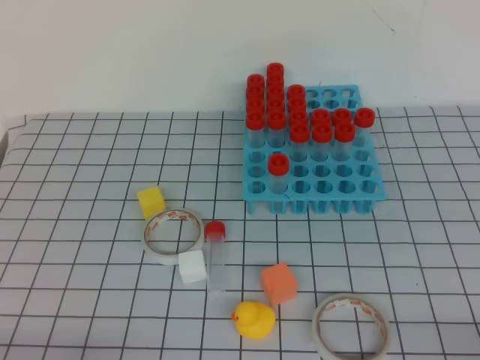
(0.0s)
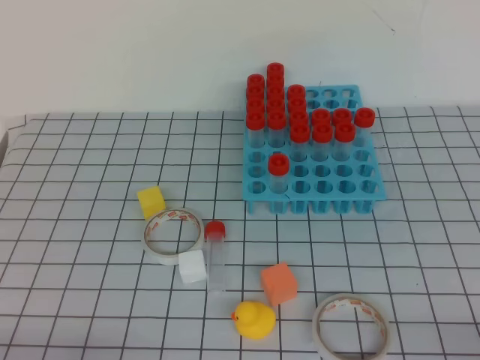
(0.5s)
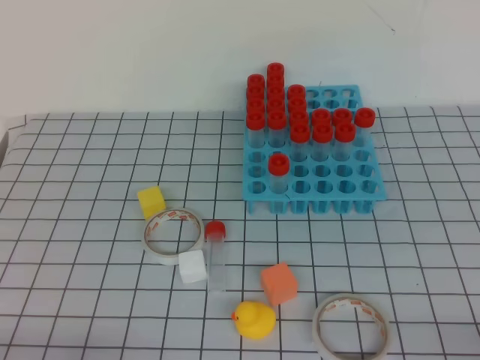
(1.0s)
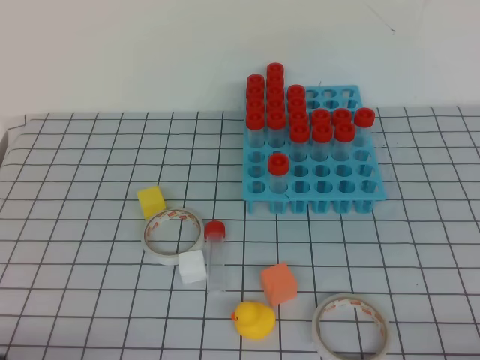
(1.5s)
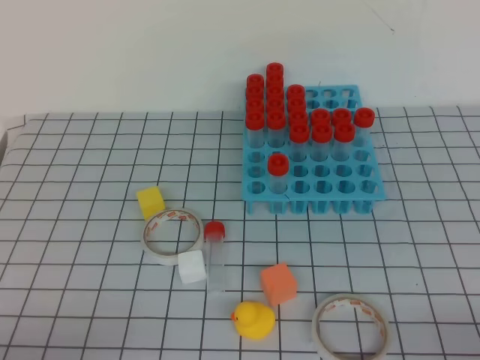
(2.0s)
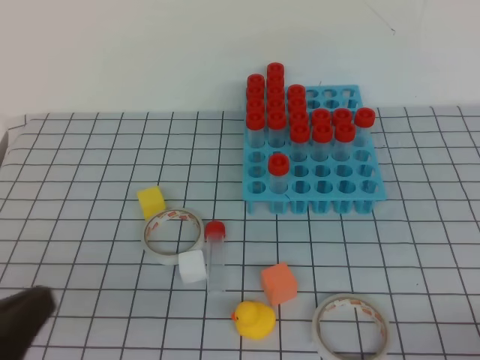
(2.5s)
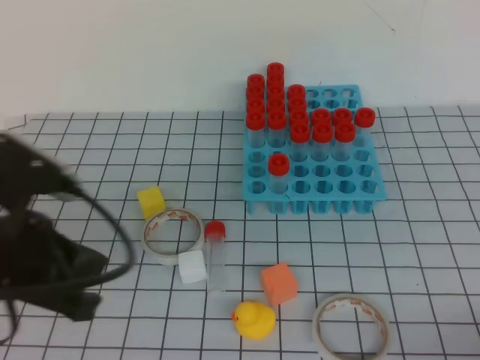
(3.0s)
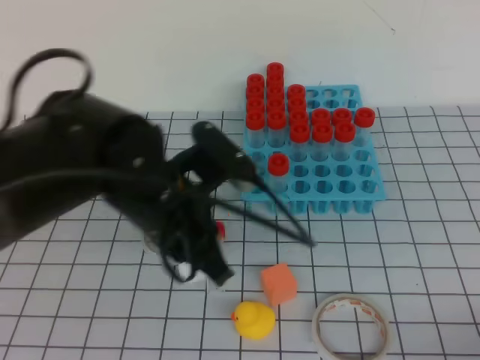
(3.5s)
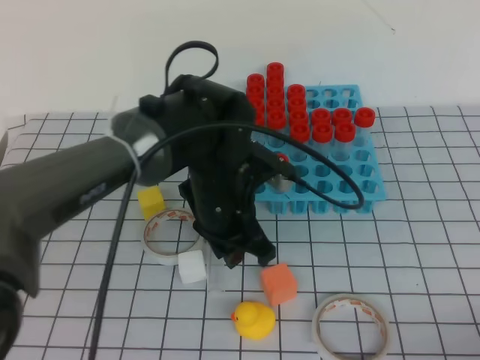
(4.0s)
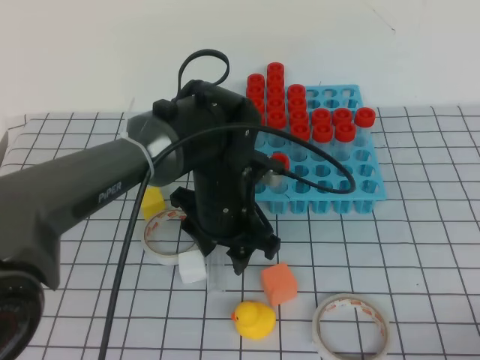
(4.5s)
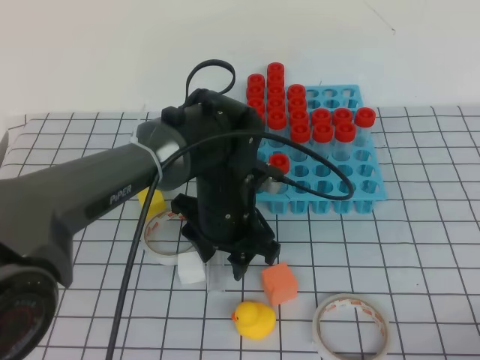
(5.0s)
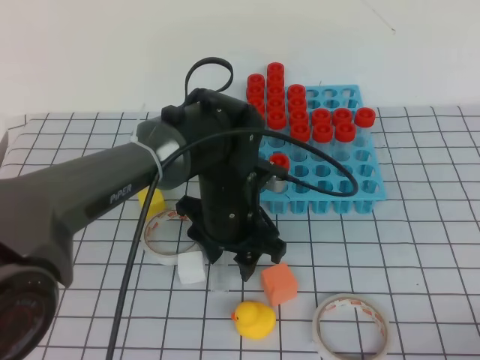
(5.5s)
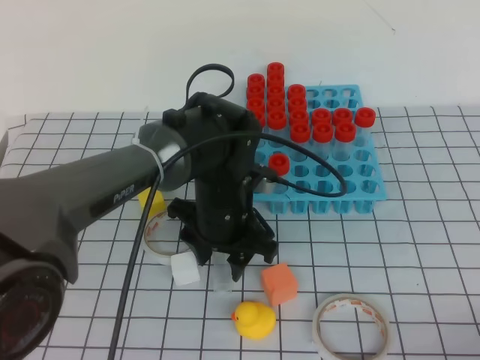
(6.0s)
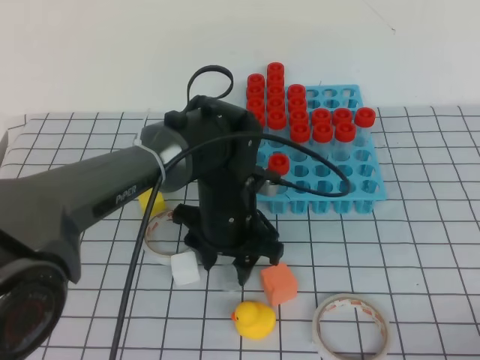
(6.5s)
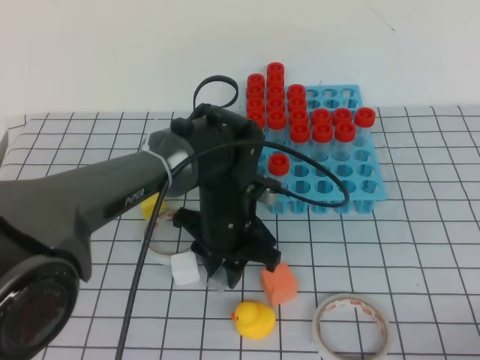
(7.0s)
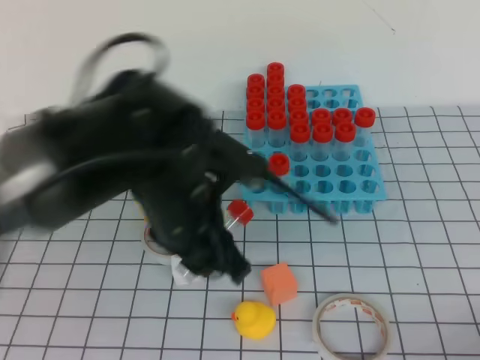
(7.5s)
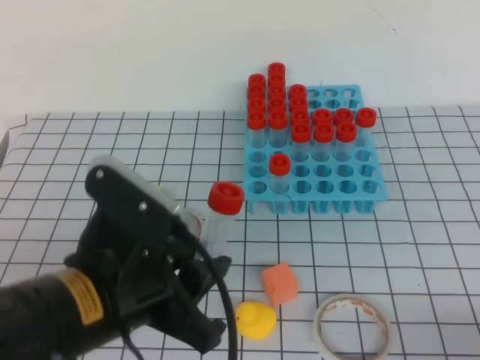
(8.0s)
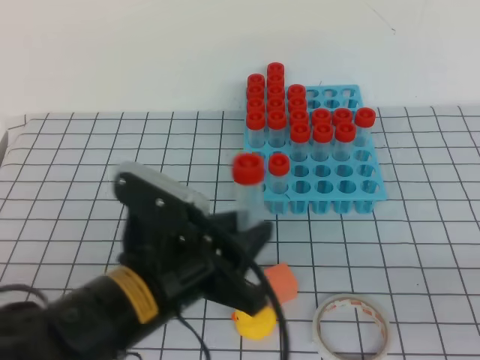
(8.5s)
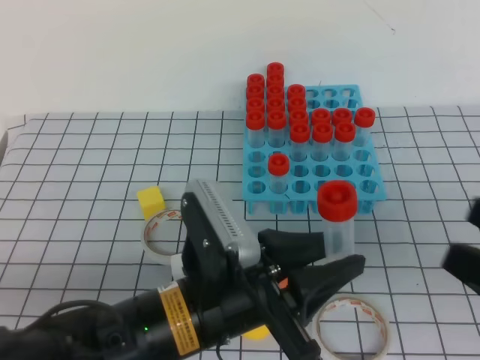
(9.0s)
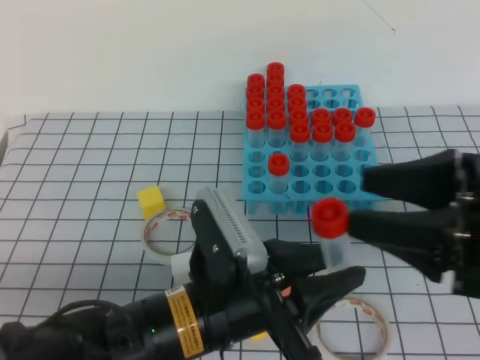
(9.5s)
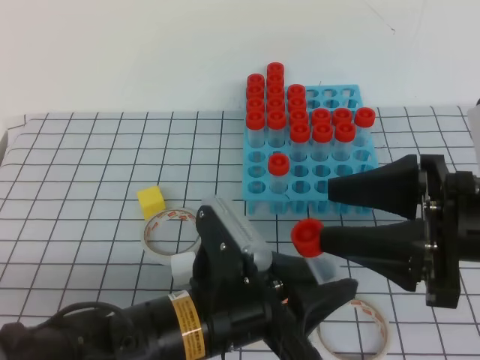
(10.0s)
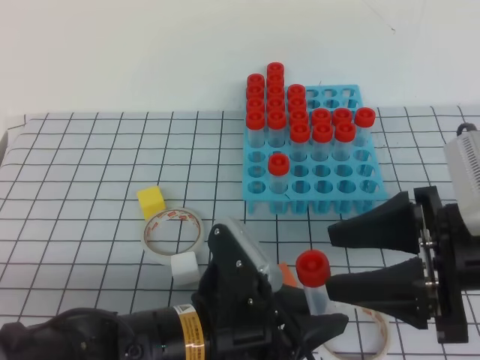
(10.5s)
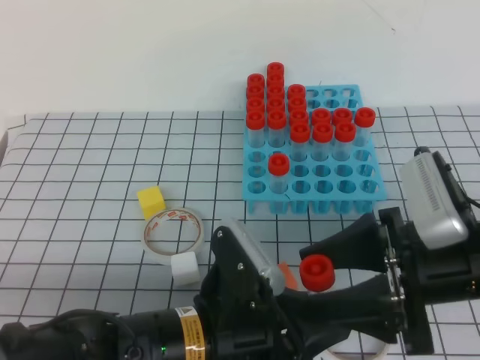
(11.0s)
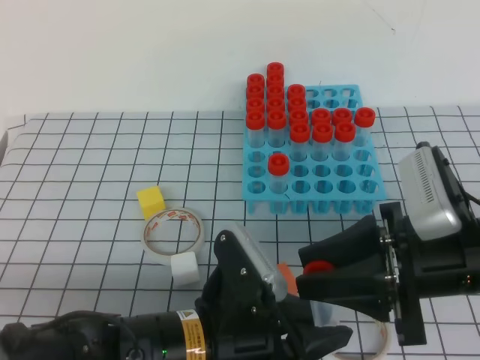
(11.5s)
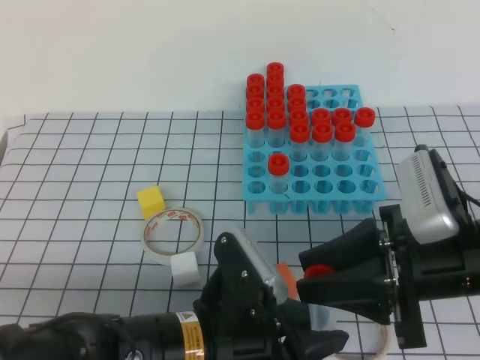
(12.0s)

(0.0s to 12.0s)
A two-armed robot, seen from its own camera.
2.0s - 4.0s: The left gripper shifts about 35 cm forward and to the right.
4.0s - 6.0s: The left gripper opens its fingers.
6.0s - 8.0s: The left gripper shifts about 20 cm backward, upward and to the left, and closes its fingers.
8.0s - 10.0s: The right gripper moves forward, to the left and upward, roughly 20 cm, and opens up. The left gripper heads downward and to the right, covering roughly 10 cm.
10.0s - 12.0s: The right gripper closes up.

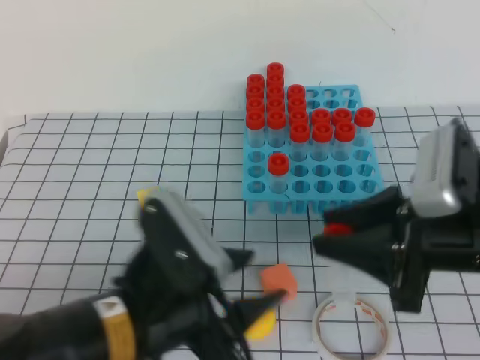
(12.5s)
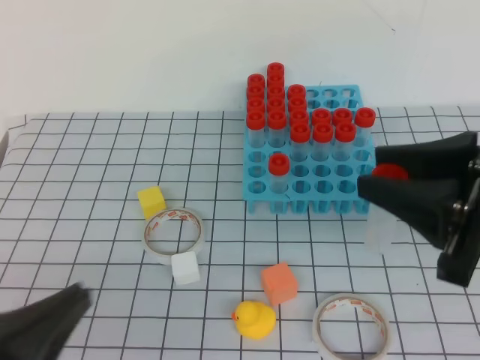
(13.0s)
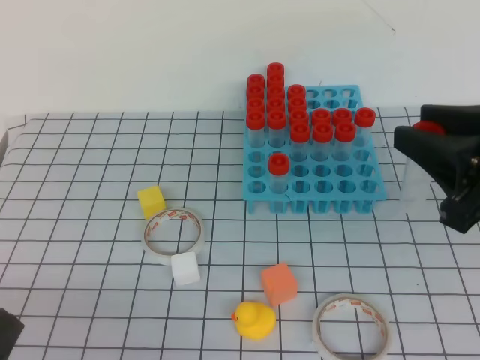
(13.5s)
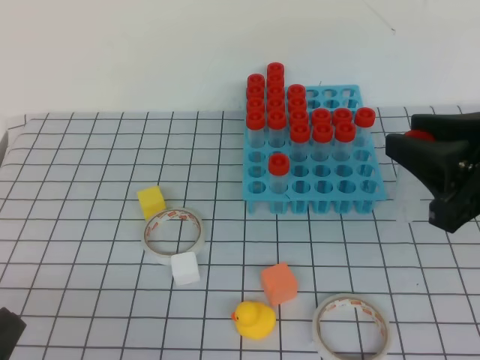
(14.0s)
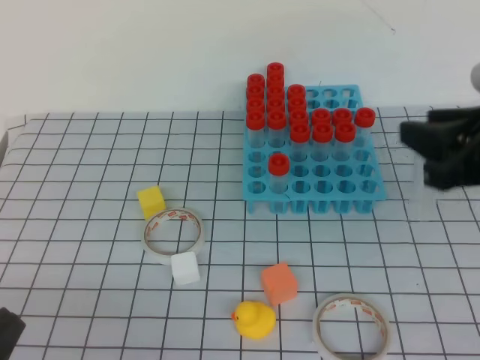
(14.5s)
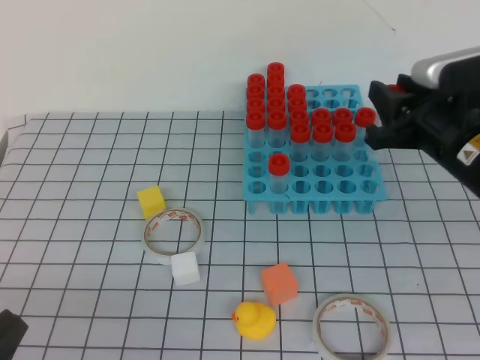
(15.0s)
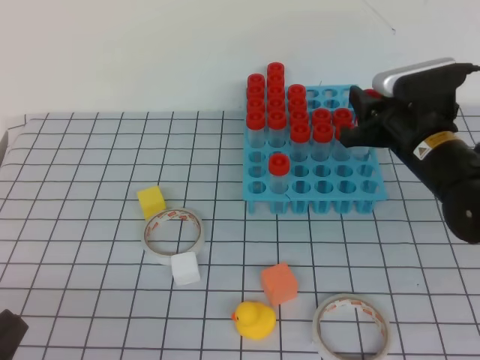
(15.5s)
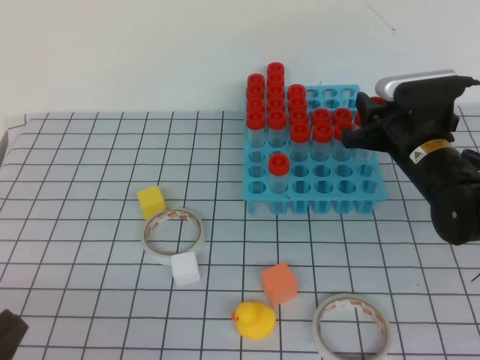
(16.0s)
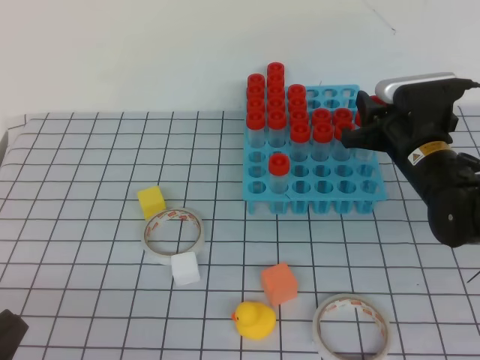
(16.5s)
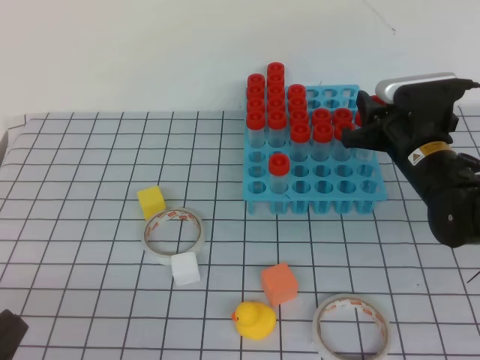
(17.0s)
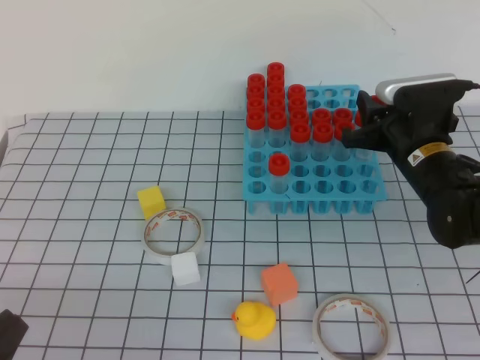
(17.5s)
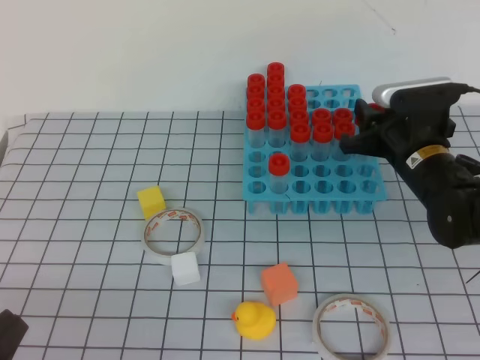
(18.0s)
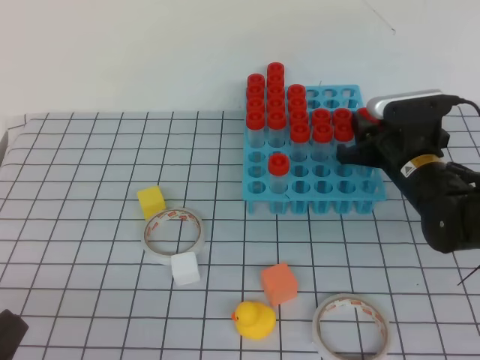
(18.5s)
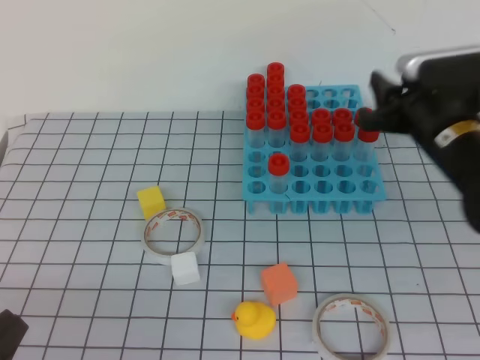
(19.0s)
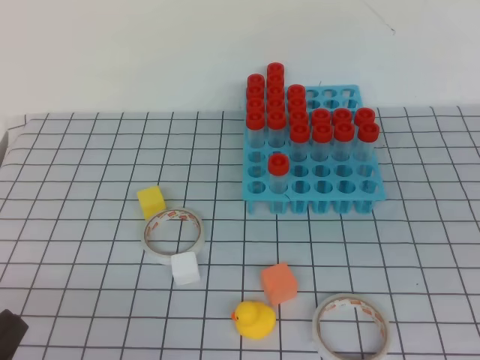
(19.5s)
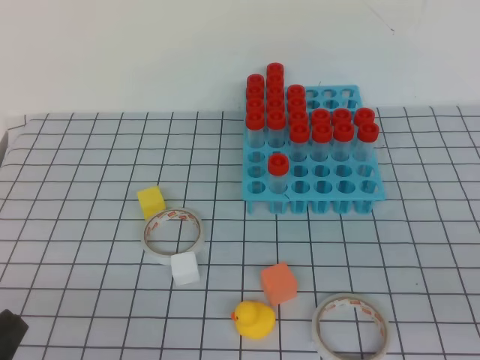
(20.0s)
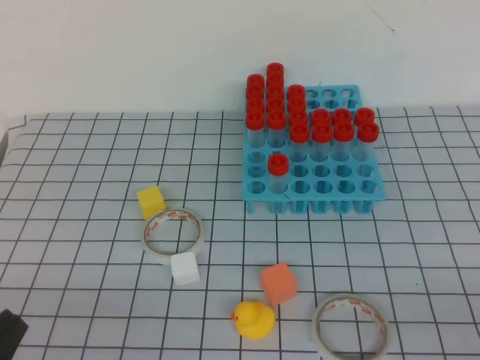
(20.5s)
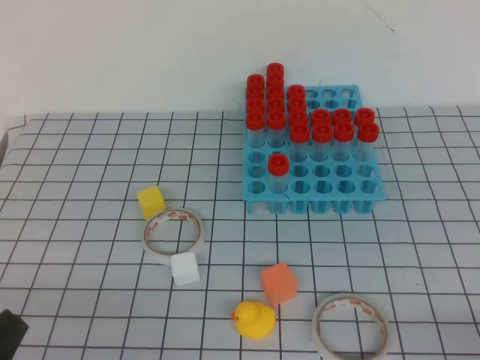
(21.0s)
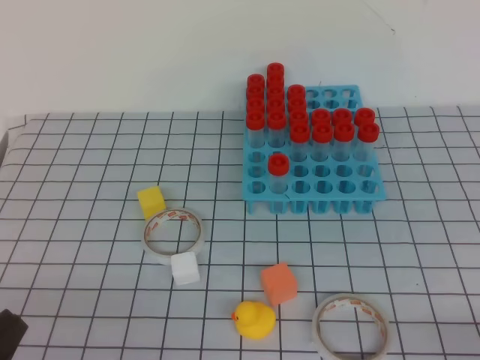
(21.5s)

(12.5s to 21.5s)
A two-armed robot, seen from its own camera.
12.5s - 14.5s: The right gripper changes place by about 5 cm; the left gripper is displaced to the left and backward by approximately 20 cm, and closes.
14.5s - 17.0s: The right gripper moves forward and downward, roughly 20 cm.
17.0s - 19.5s: The right gripper heads backward and upward, covering some 25 cm, and closes its fingers.
19.5s - 21.5s: The right gripper moves downward, backward and to the right, about 25 cm.

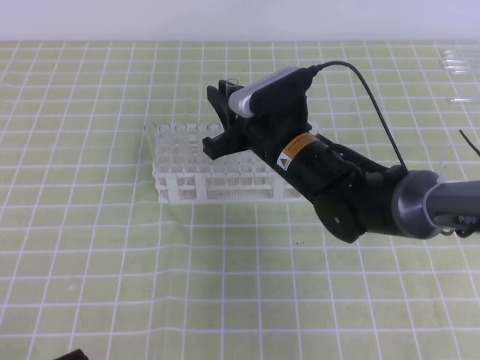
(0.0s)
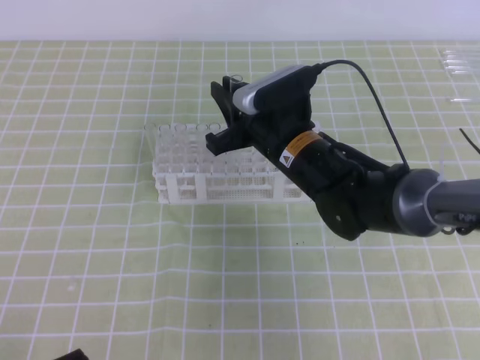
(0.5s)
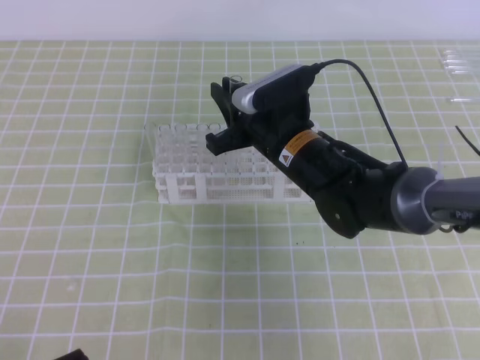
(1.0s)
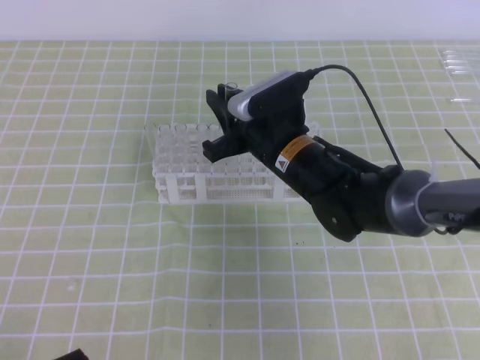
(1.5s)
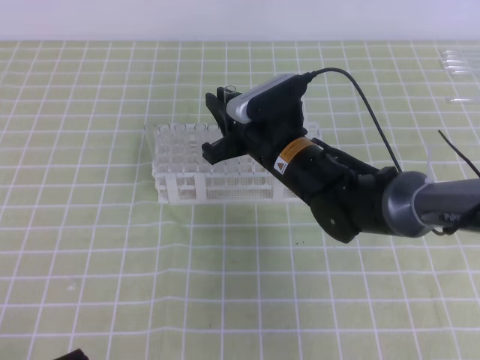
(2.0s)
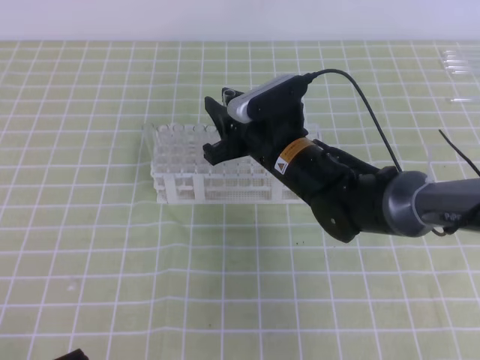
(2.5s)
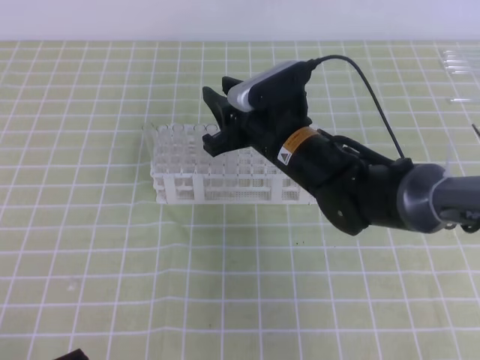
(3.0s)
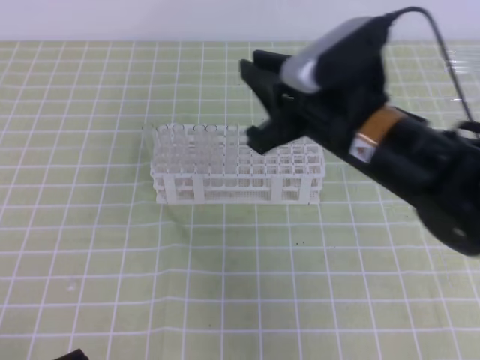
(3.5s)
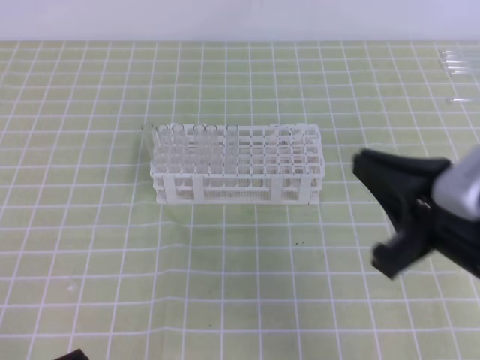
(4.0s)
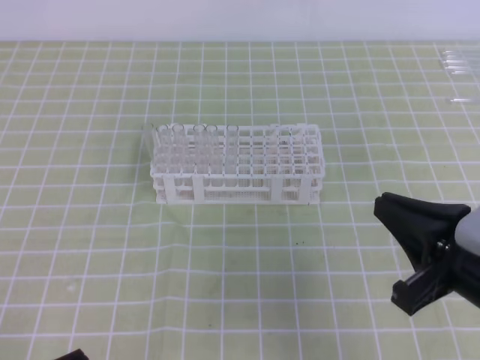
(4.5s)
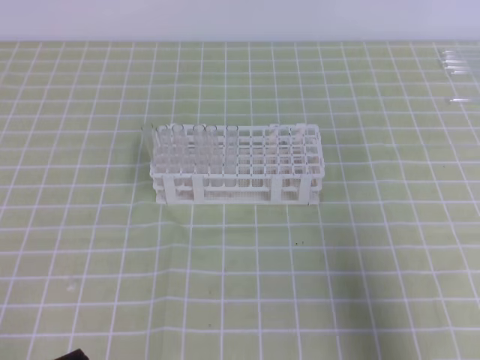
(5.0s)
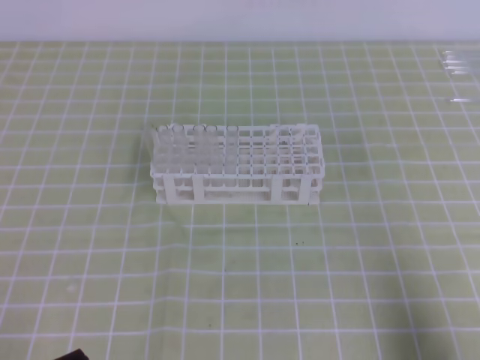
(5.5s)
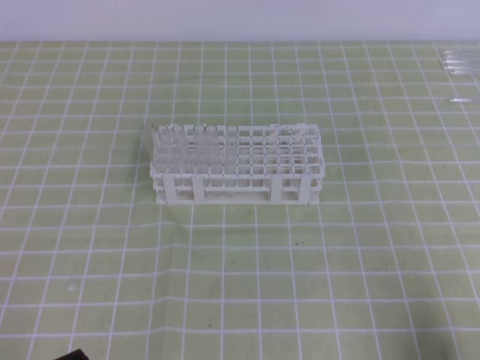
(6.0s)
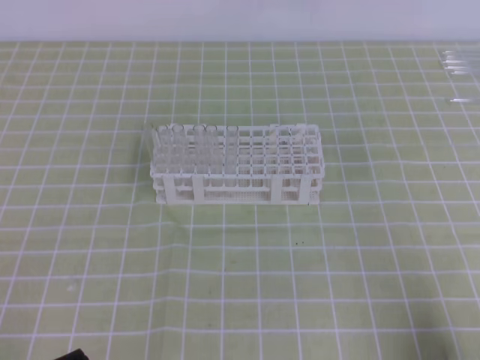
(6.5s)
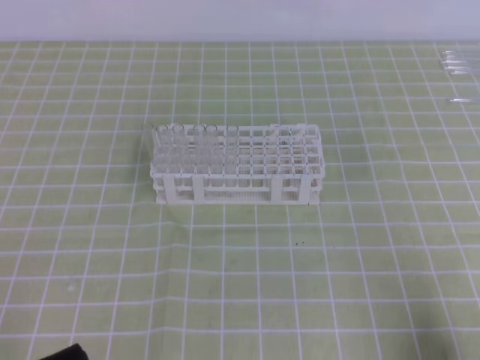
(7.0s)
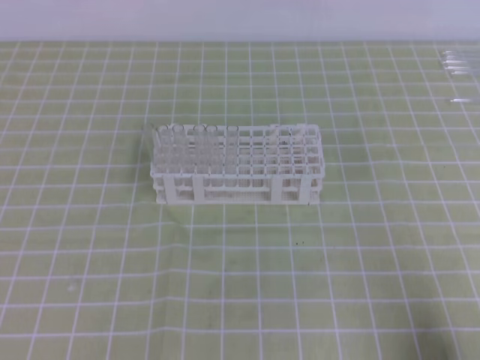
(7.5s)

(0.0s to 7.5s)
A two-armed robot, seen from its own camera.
0.0s - 2.0s: The grippers stay close to where they were, moving slightly.
2.0s - 4.0s: The right gripper goes about 25 cm backward, to the right and upward, and closes up.
4.0s - 5.5s: The right gripper moves to the right, backward and downward, approximately 20 cm.
